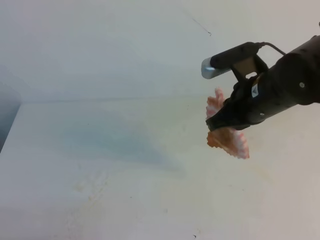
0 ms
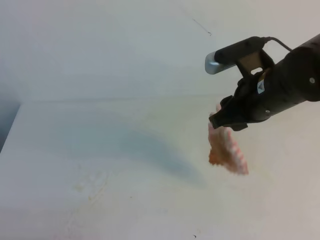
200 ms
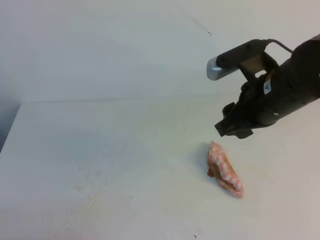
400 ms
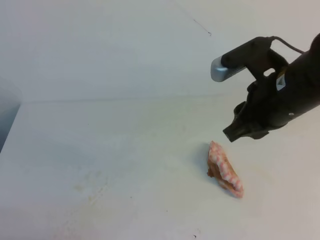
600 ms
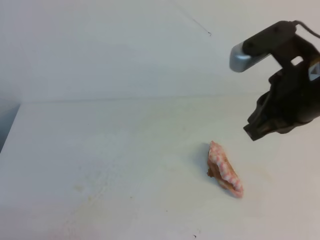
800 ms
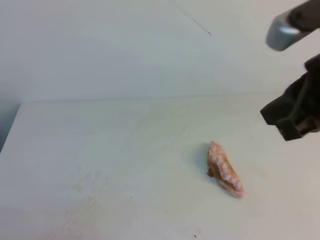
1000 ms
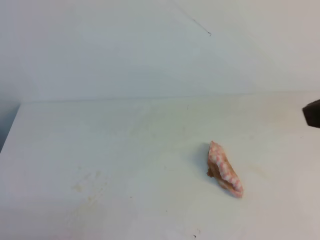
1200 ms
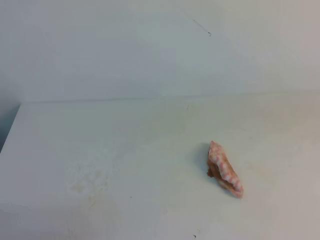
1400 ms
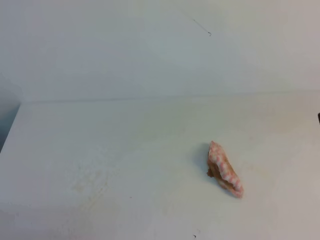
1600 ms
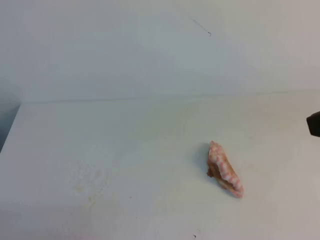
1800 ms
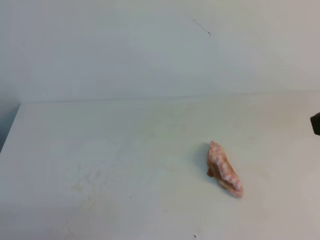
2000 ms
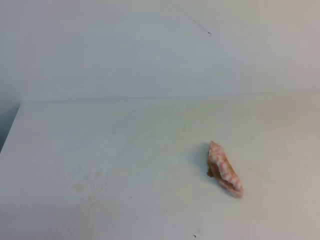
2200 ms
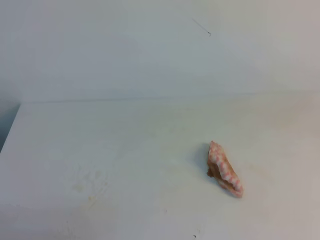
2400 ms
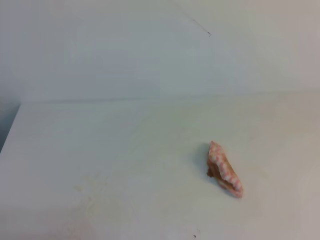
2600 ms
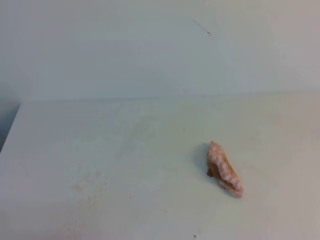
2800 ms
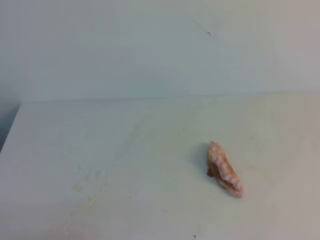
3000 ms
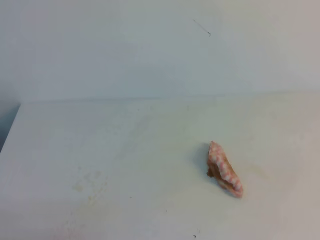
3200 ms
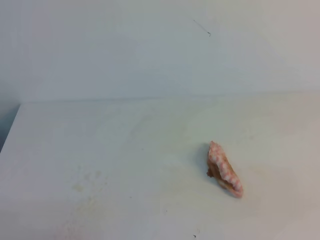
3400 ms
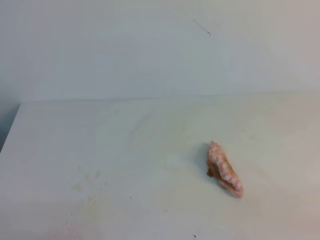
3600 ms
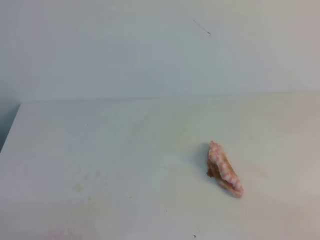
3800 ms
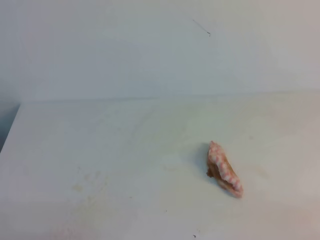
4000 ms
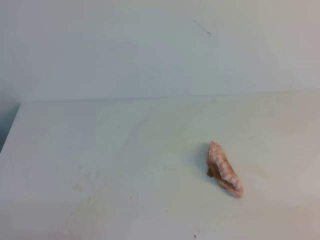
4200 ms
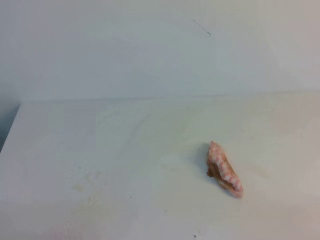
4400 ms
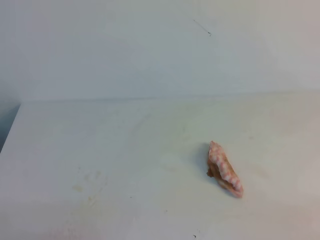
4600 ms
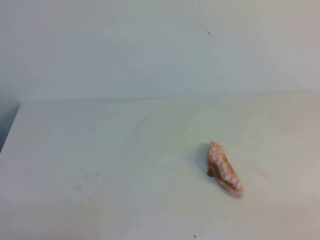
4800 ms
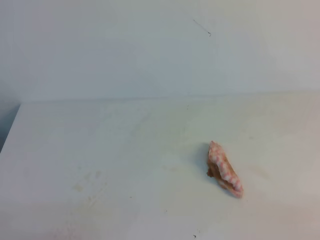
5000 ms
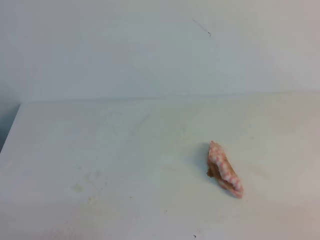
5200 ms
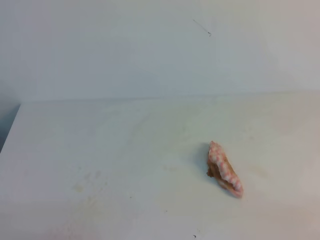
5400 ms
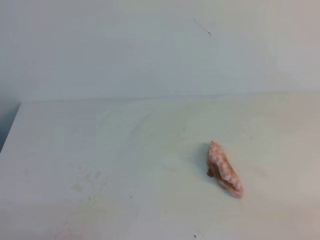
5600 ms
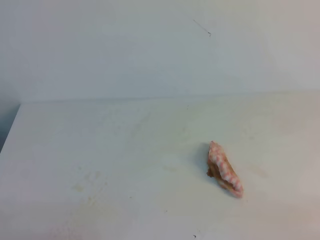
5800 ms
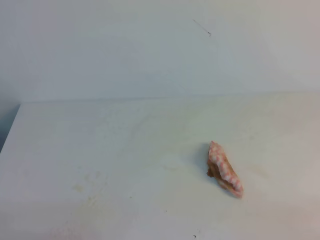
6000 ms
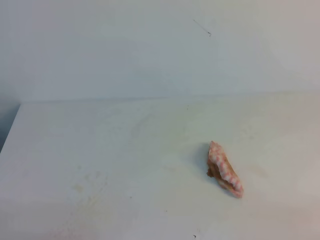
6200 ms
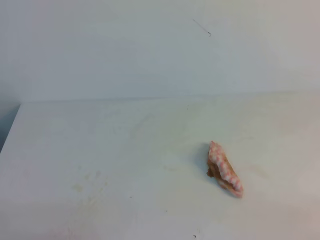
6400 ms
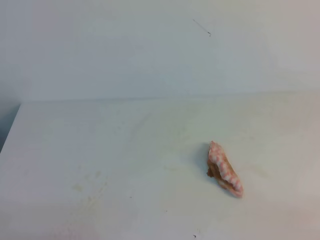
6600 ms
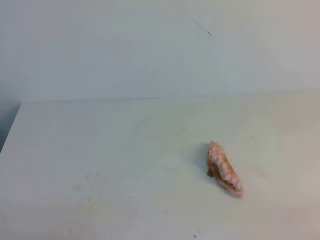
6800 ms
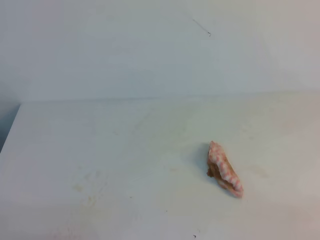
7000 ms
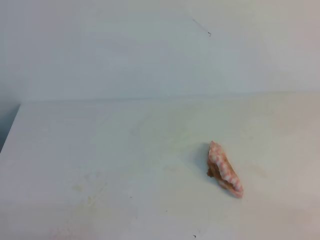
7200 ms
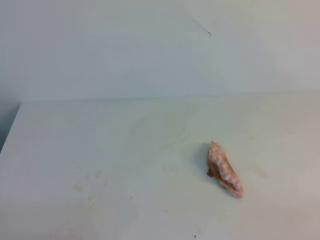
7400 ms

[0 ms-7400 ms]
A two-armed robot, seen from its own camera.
0 ms to 1400 ms: The right gripper shifts about 25 cm backward, upward and to the right, and closes.
4400 ms to 7400 ms: Both grippers stay about where they are.
